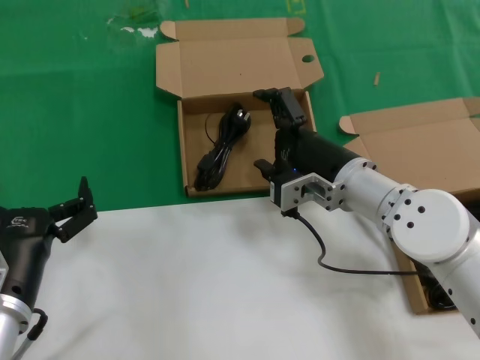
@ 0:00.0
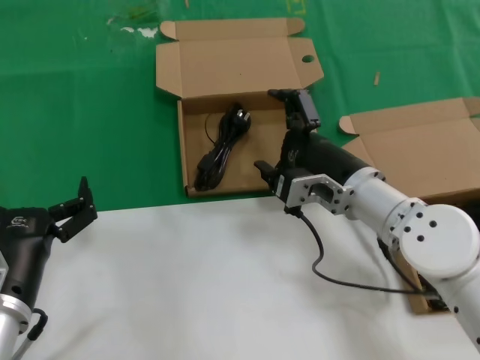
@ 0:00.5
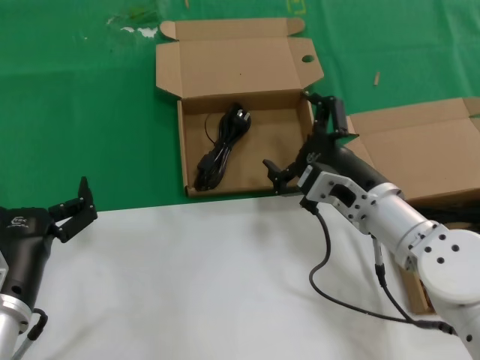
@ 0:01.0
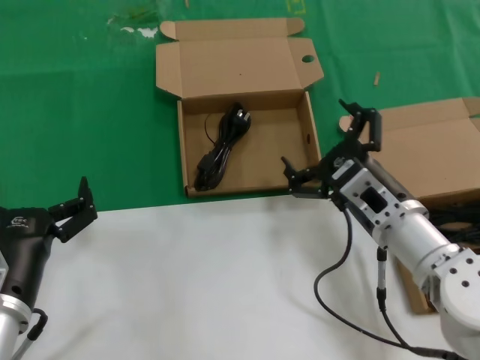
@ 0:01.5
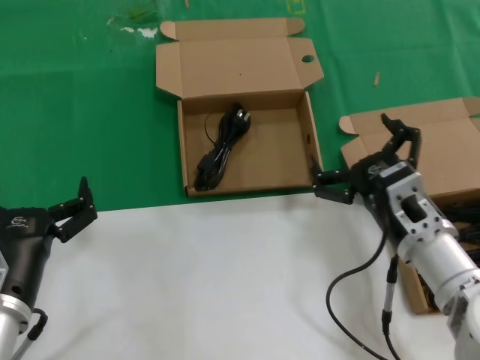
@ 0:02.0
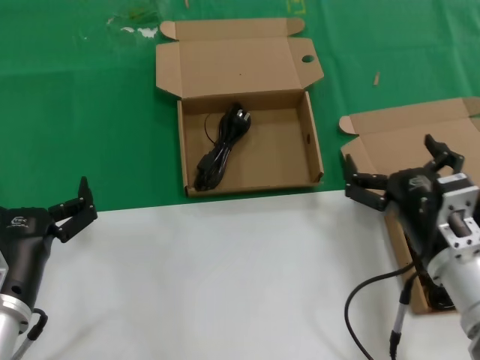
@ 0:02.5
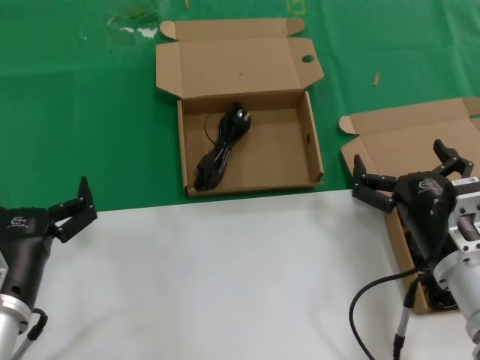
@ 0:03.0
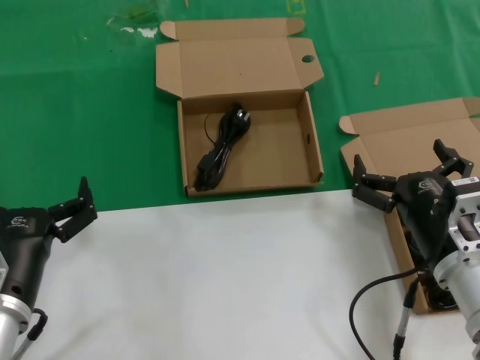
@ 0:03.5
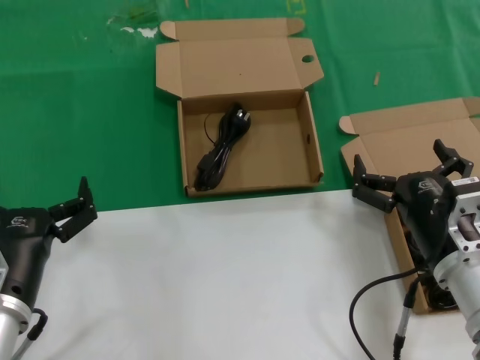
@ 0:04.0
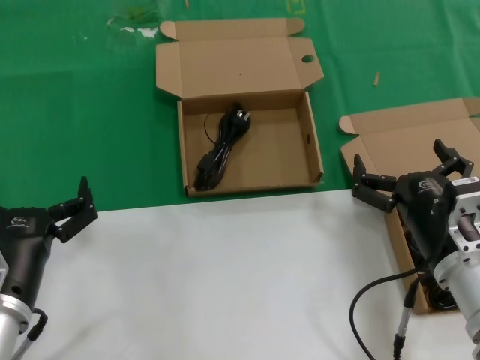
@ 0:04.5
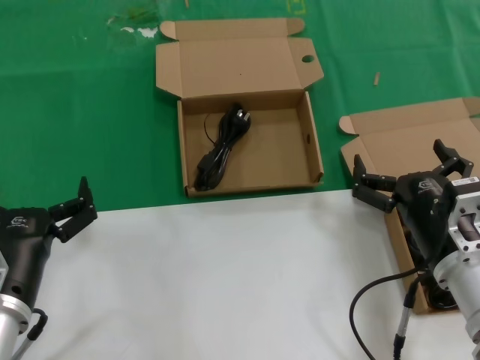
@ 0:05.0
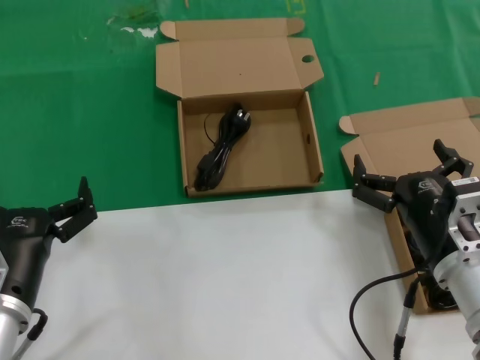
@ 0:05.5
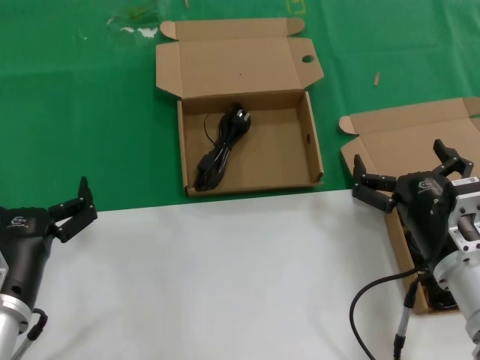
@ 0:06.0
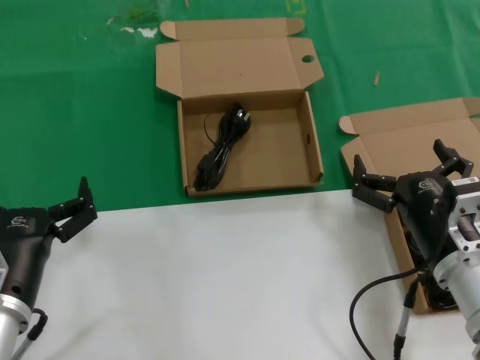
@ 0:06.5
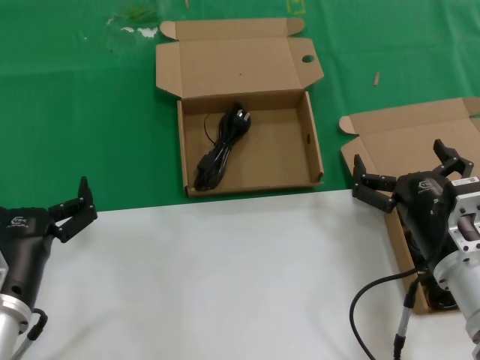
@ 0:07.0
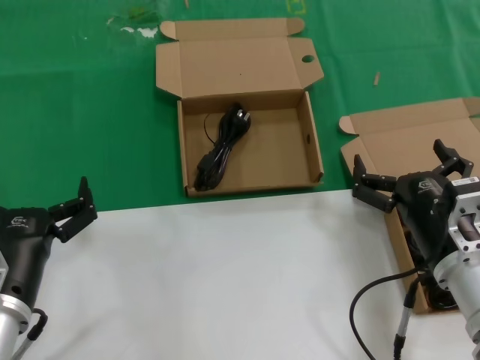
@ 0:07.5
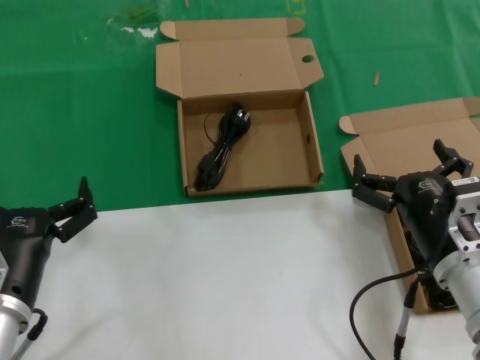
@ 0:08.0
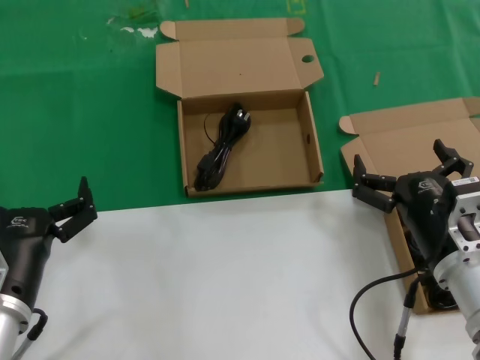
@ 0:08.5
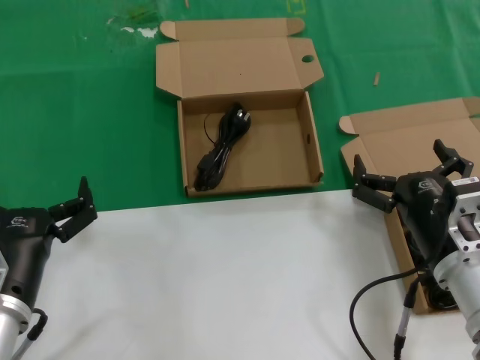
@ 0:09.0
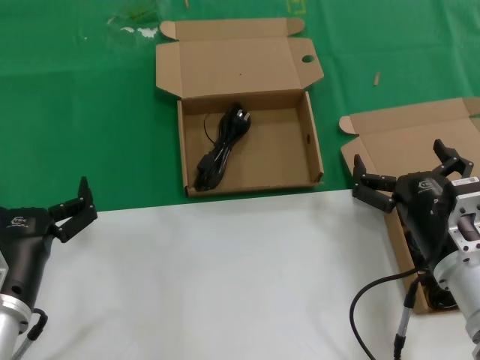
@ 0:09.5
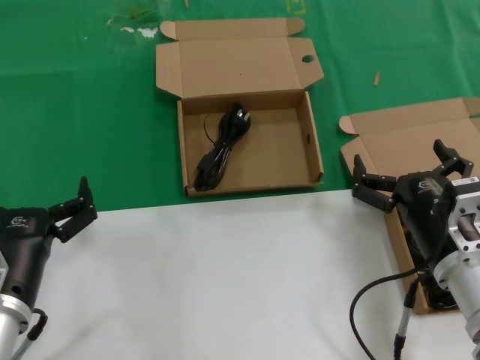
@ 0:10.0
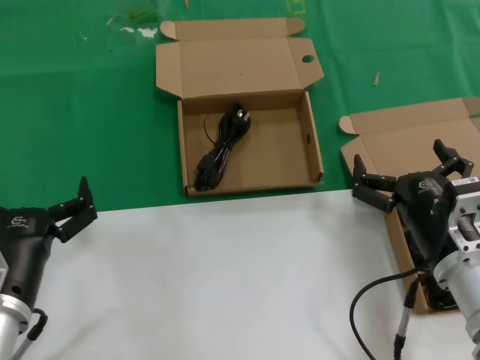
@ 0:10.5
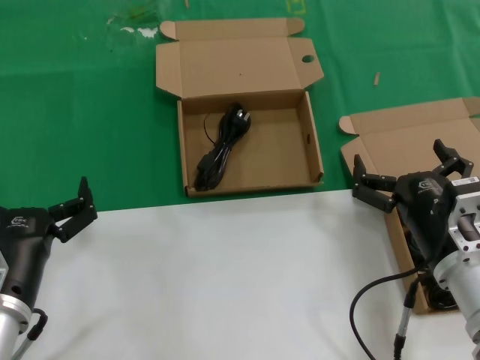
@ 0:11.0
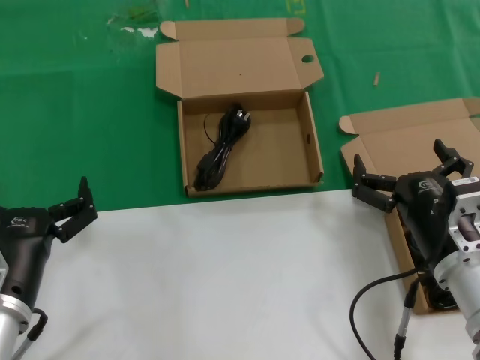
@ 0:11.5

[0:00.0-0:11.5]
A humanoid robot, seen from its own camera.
Task of the whole recording: take the parts from the box containing them and put them into an empty box.
0:00.0 to 0:02.0: The right hand shifts about 10 cm backward.
0:04.0 to 0:11.5: Both hands stay put.
